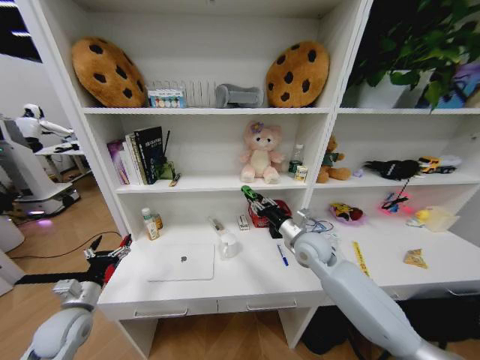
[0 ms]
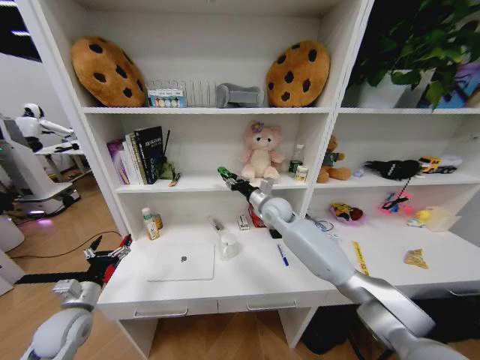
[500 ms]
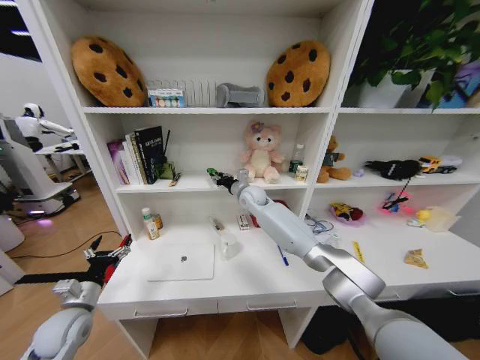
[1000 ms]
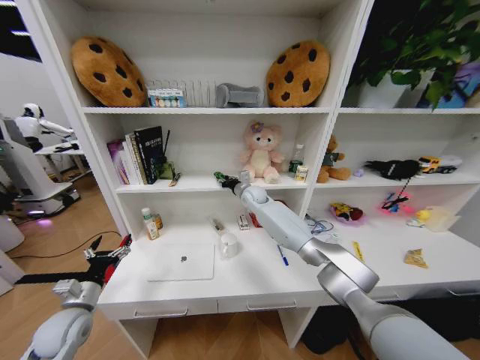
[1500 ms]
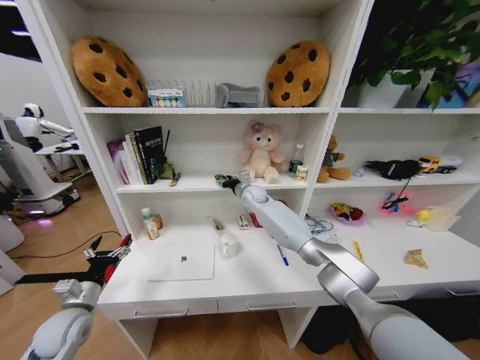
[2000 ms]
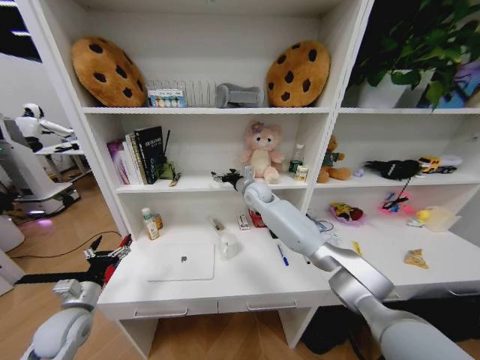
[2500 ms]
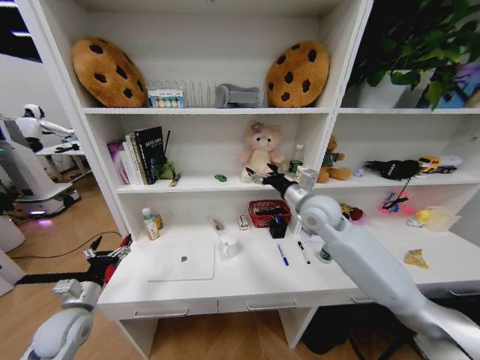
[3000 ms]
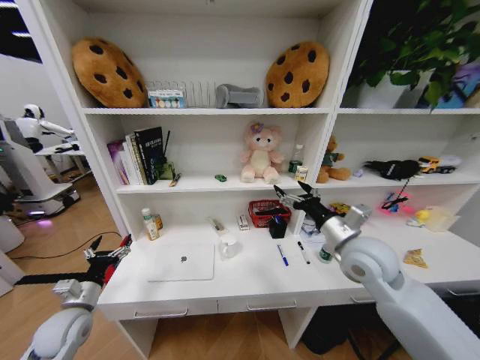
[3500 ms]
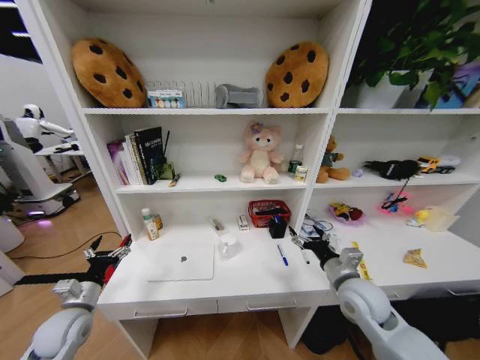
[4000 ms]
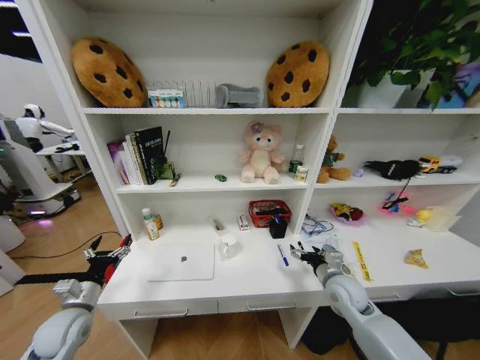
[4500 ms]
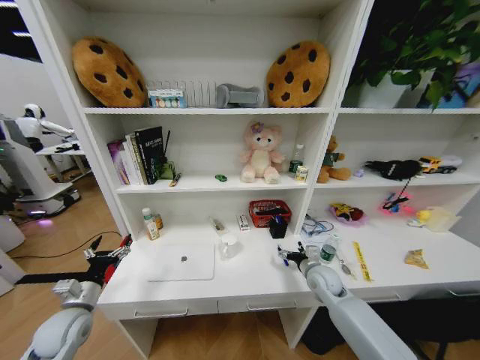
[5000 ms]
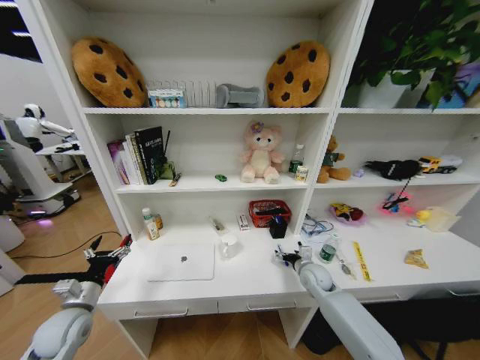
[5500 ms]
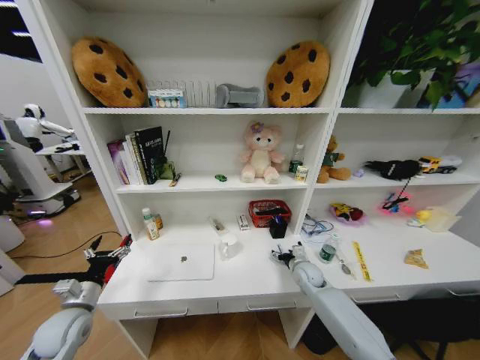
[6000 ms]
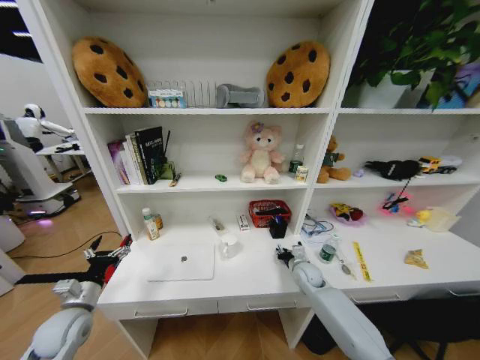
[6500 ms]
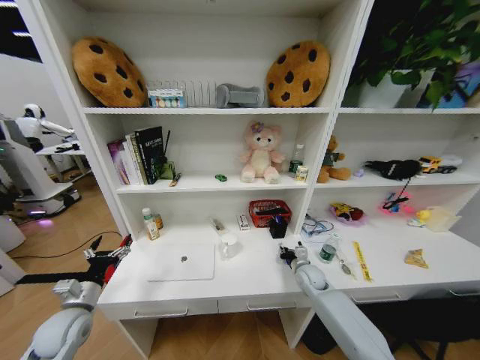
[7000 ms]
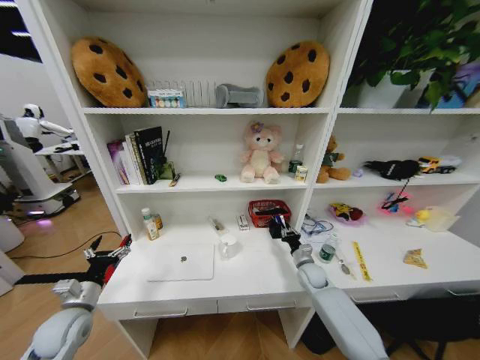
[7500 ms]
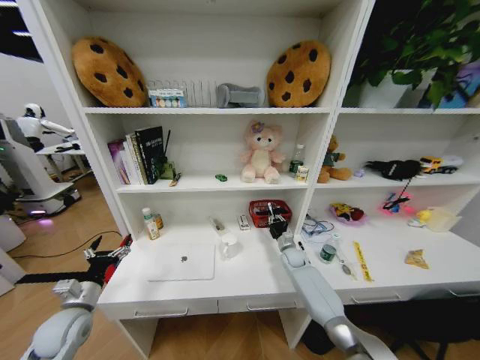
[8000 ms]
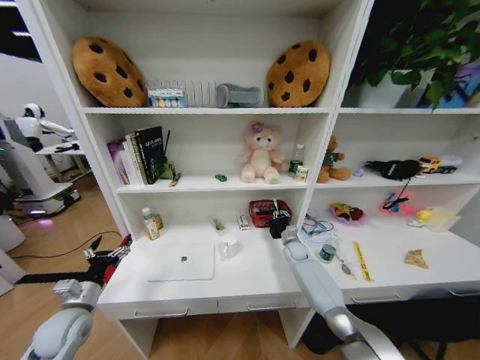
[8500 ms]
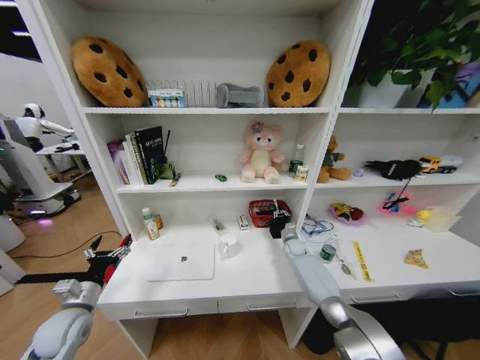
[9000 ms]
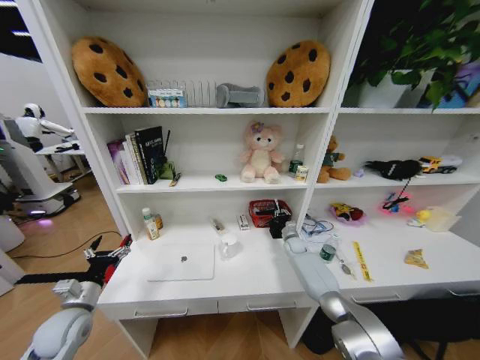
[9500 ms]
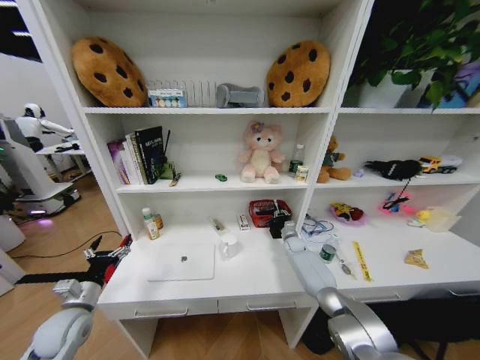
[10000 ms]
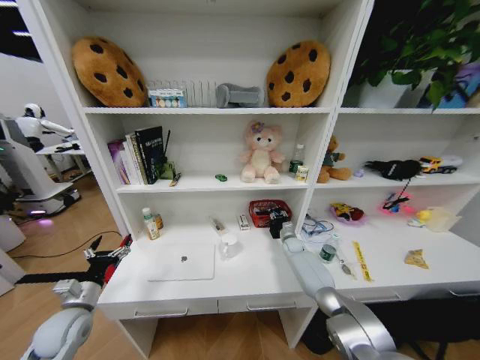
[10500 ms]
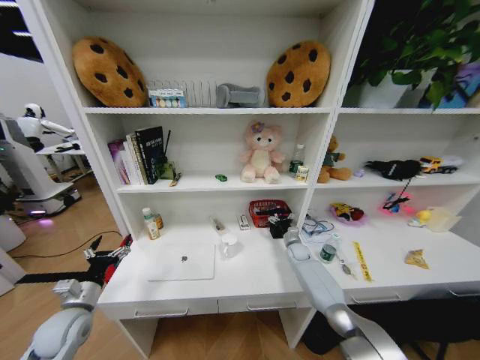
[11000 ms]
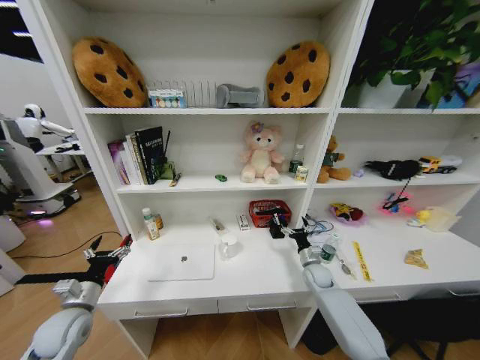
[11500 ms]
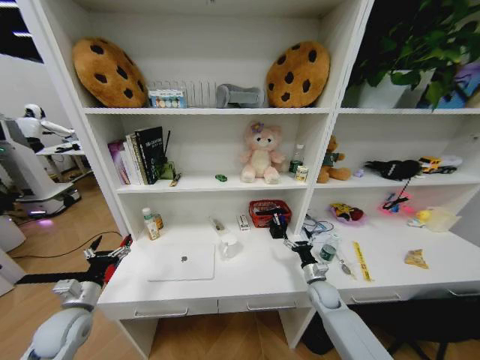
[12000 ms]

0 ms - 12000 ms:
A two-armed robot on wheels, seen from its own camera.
Task of the whole recording: Organize the objects on the table.
0 ms - 2000 ms: The right gripper travels forward and to the left by about 25 cm.
2000 ms - 4000 ms: The right gripper moves backward and to the right, approximately 40 cm, and opens.
4000 ms - 6000 ms: The right gripper goes approximately 20 cm downward and forward.
6000 ms - 8000 ms: The right gripper travels forward by roughly 10 cm, and closes.
8000 ms - 10000 ms: The right gripper travels forward by approximately 5 cm.
10000 ms - 12000 ms: The right gripper heads backward, covering about 20 cm, and opens up.

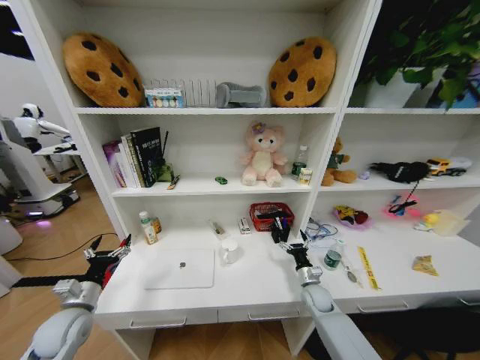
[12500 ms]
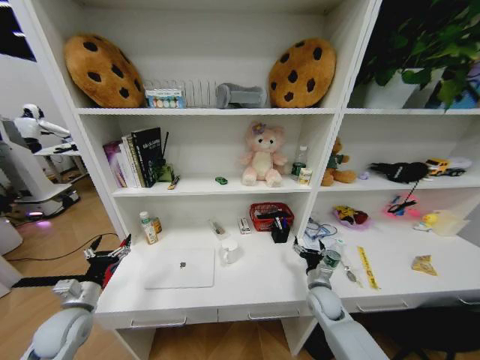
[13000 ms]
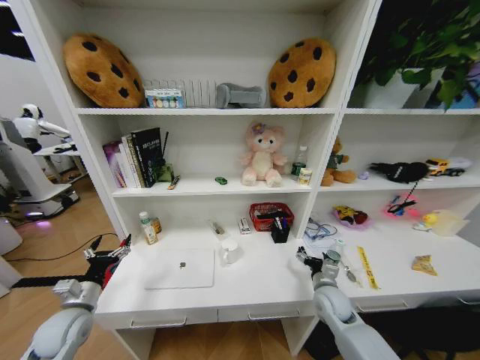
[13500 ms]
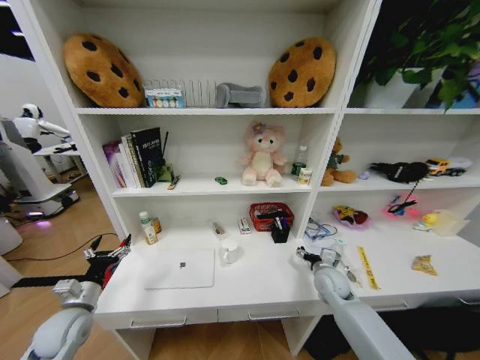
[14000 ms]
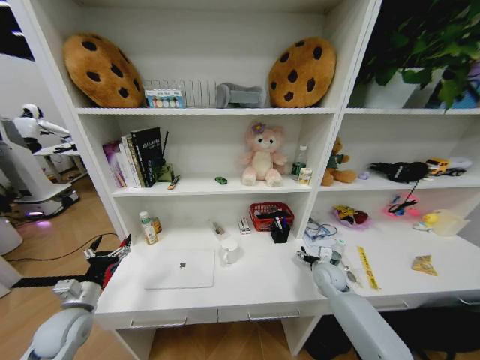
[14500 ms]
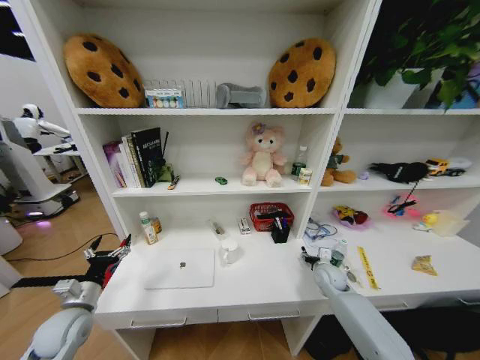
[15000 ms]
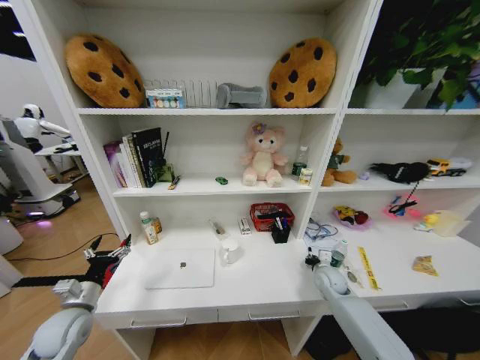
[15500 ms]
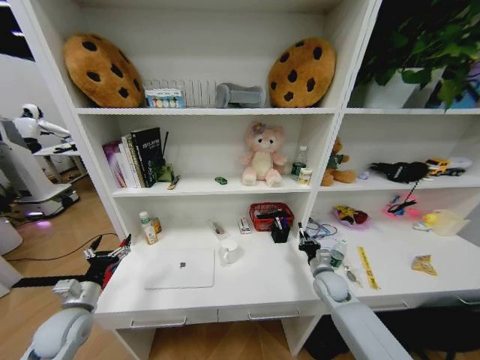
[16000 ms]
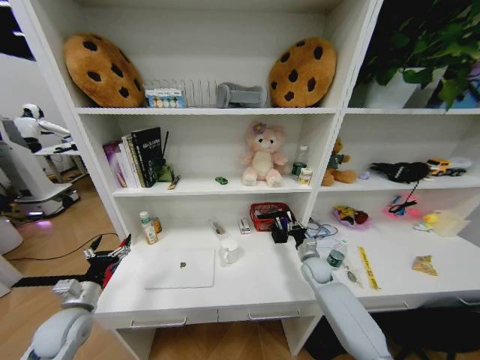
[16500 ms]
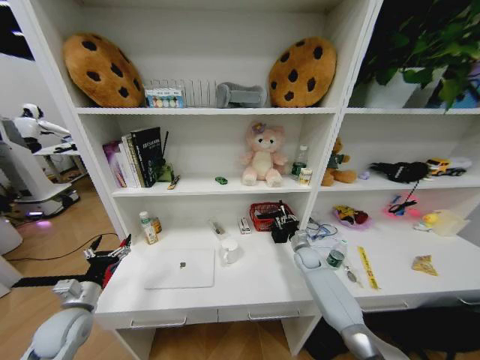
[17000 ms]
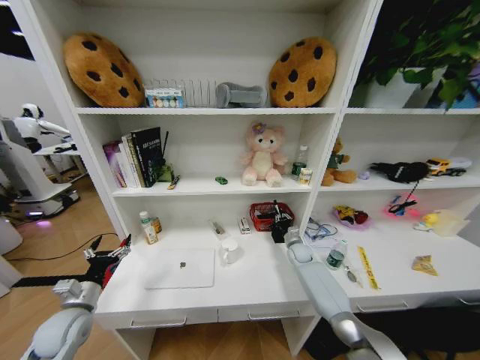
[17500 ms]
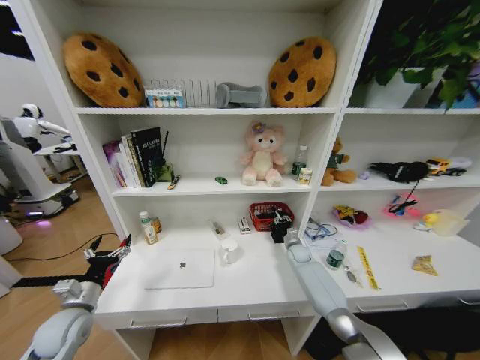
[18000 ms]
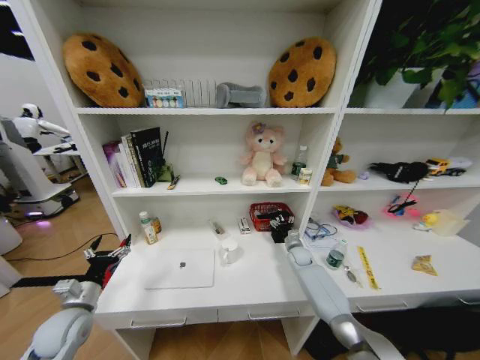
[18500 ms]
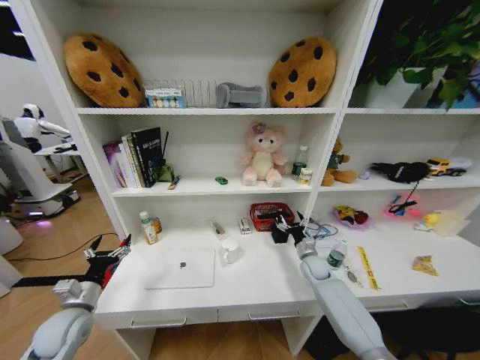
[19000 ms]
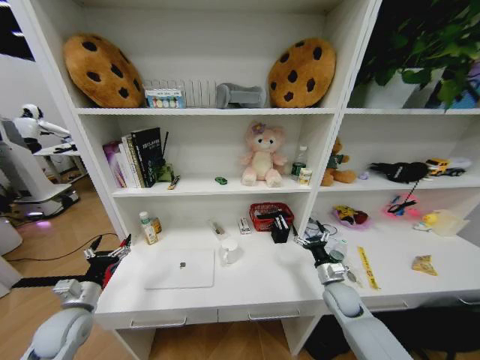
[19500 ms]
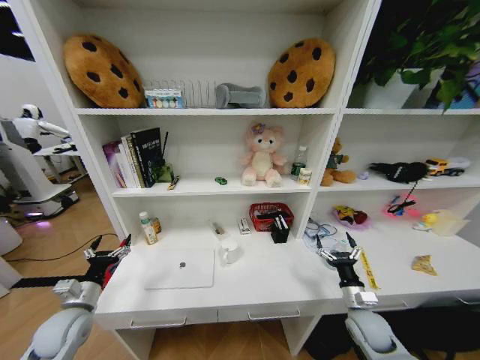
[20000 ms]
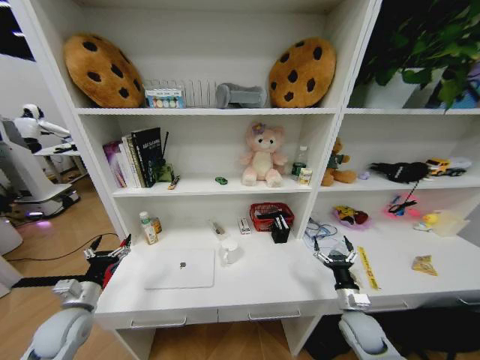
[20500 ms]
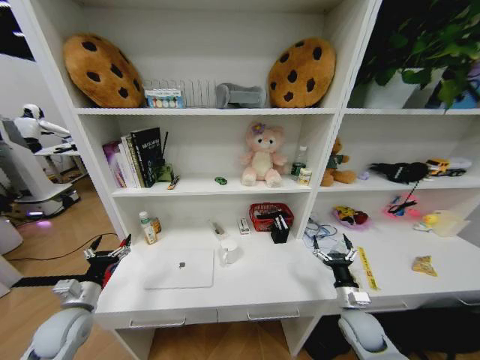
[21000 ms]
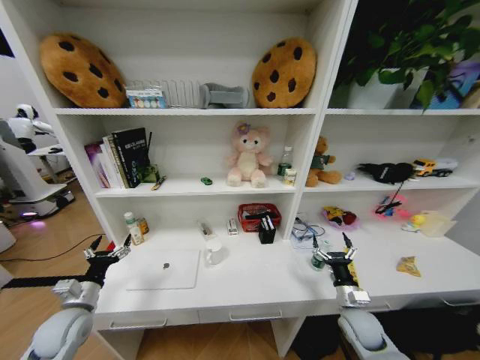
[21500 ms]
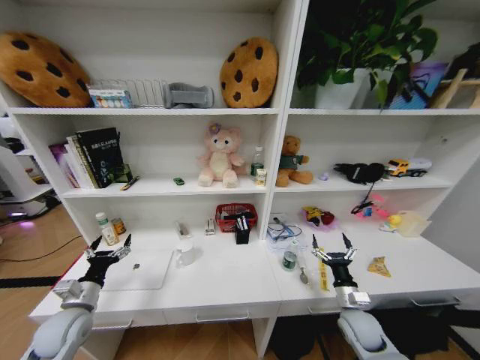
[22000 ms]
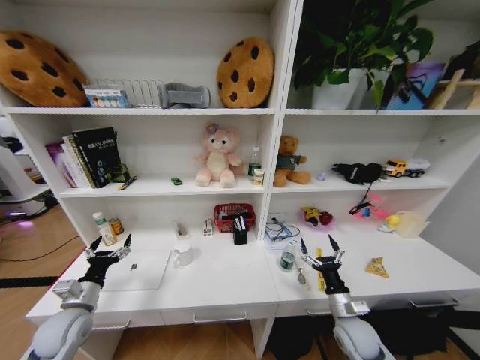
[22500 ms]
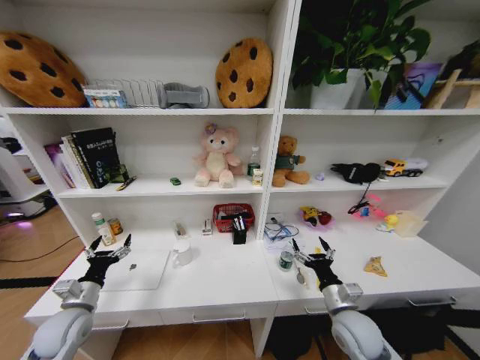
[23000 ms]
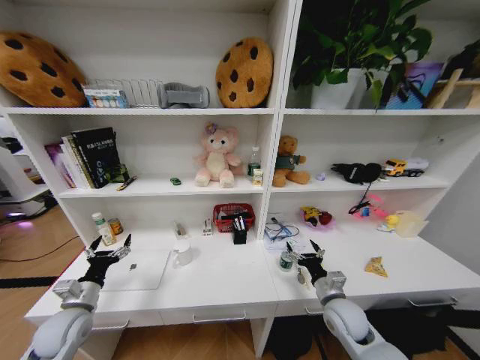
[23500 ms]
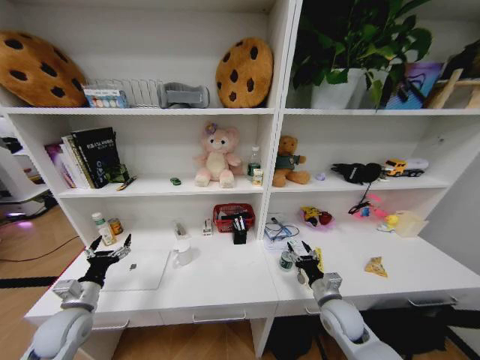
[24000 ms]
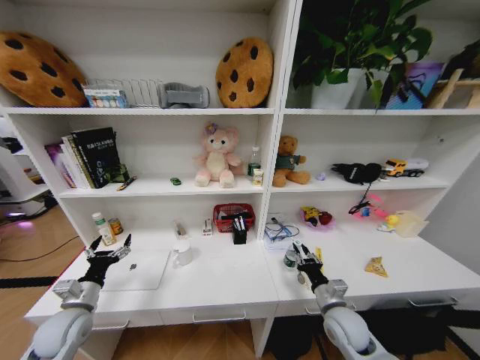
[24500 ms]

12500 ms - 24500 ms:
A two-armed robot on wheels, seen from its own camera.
Task of the whole recording: Organize the objects on the table.
12500 ms - 14500 ms: The right gripper heads upward, covering approximately 10 cm.
14500 ms - 16500 ms: The right gripper closes up.
16500 ms - 18500 ms: The right gripper shifts some 10 cm forward, and opens.
18500 ms - 20500 ms: The right gripper heads backward, covering some 25 cm.
22500 ms - 24500 ms: The right gripper moves some 5 cm, and closes.

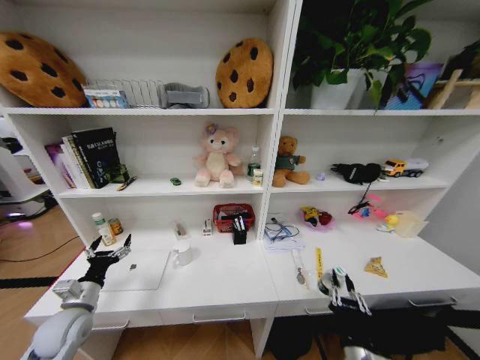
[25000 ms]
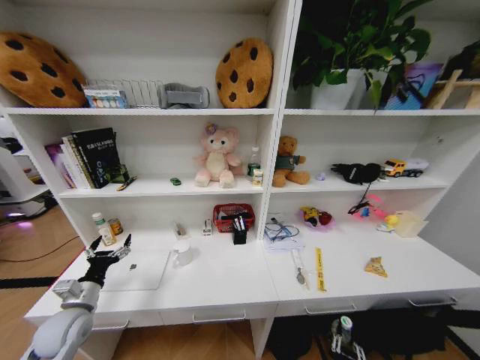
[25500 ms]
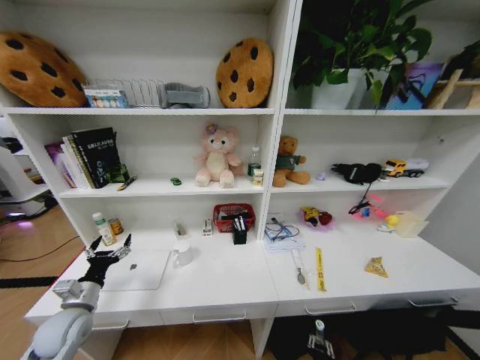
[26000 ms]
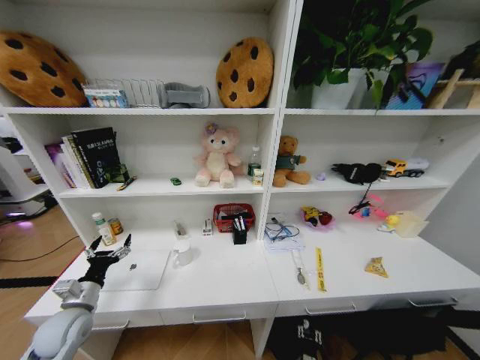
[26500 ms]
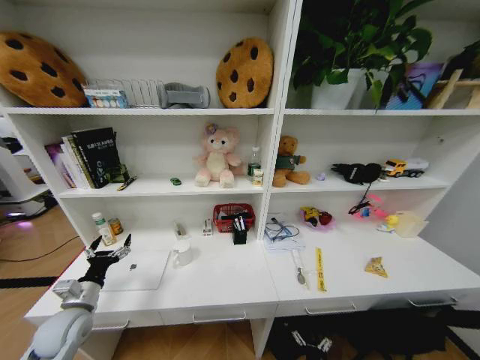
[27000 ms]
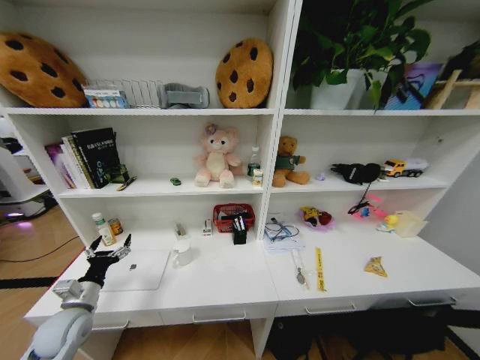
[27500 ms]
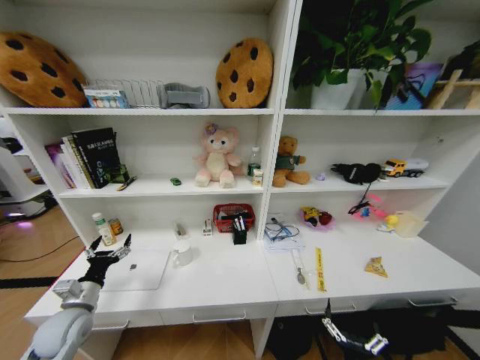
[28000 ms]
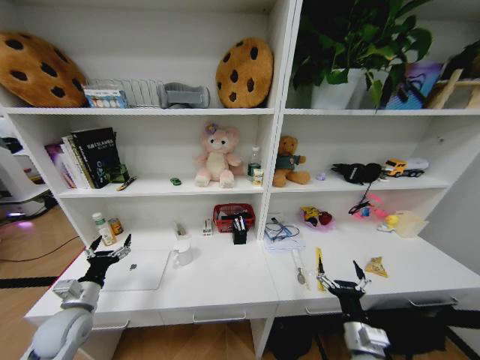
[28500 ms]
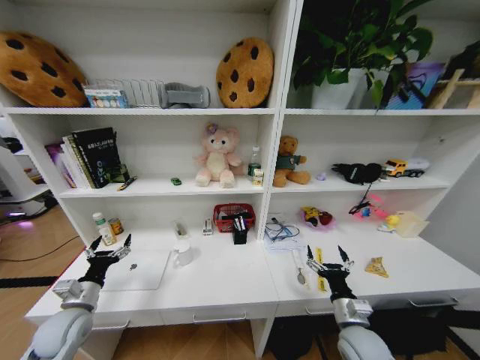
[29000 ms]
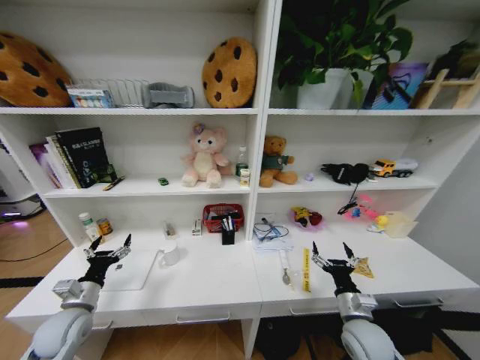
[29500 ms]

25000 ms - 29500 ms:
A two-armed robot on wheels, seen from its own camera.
Task of the whole recording: Organize the objects on the table.
25000 ms - 27000 ms: The right gripper shifts some 30 cm downward, and opens up.
27000 ms - 29500 ms: The right gripper is displaced upward and forward by roughly 30 cm.
